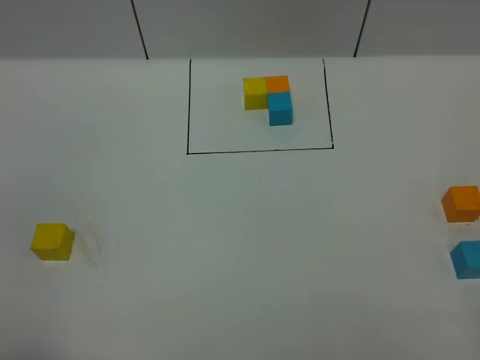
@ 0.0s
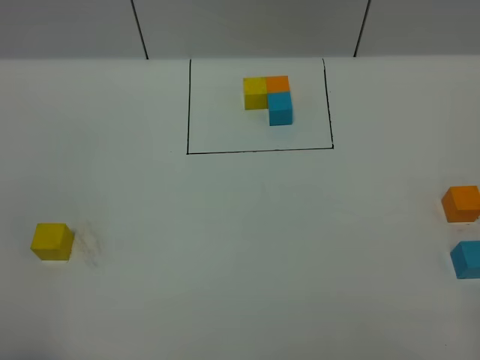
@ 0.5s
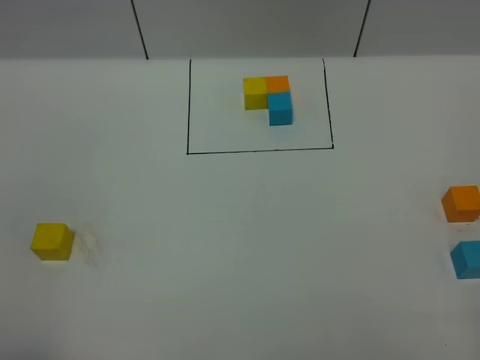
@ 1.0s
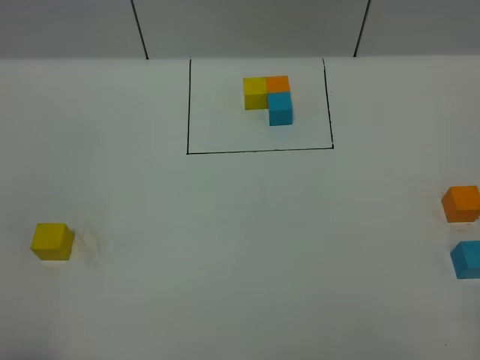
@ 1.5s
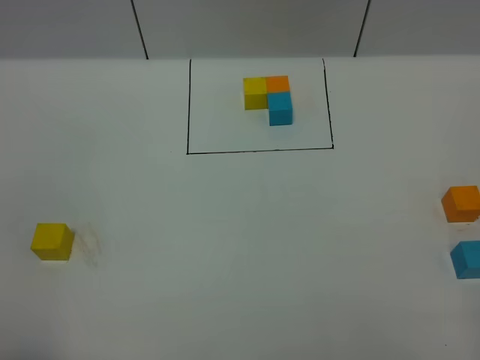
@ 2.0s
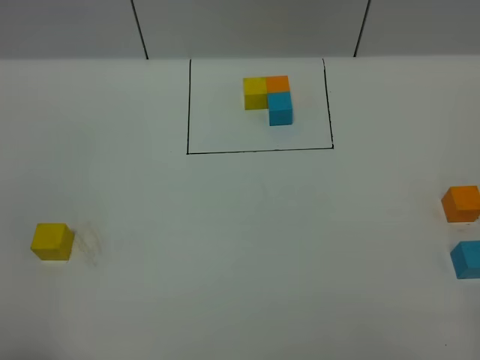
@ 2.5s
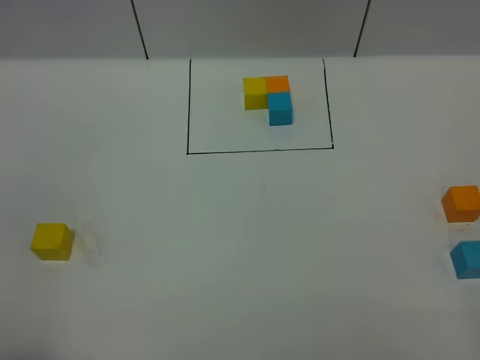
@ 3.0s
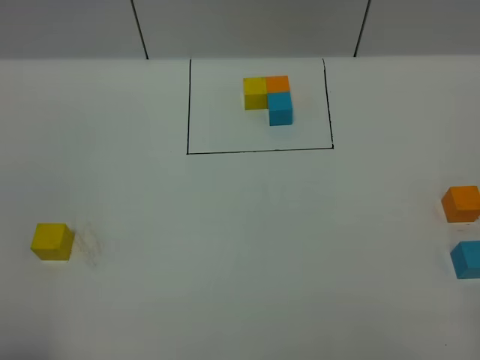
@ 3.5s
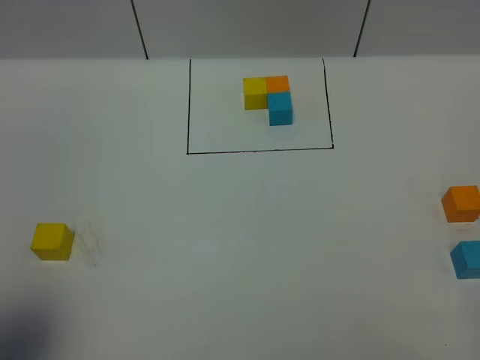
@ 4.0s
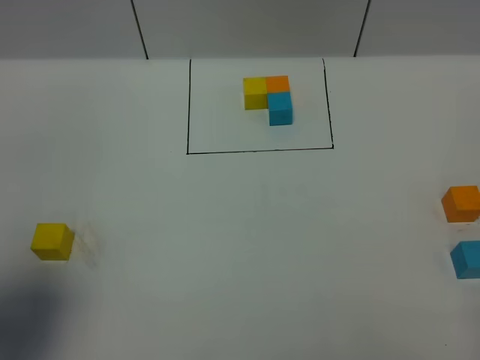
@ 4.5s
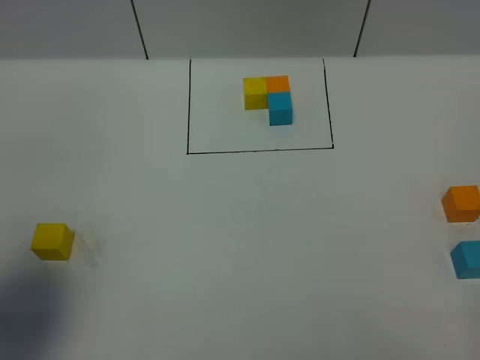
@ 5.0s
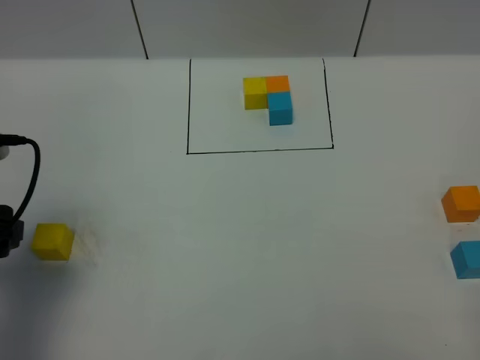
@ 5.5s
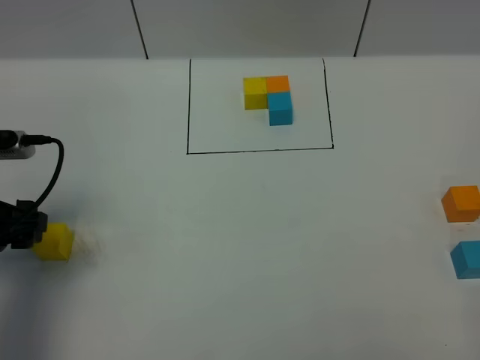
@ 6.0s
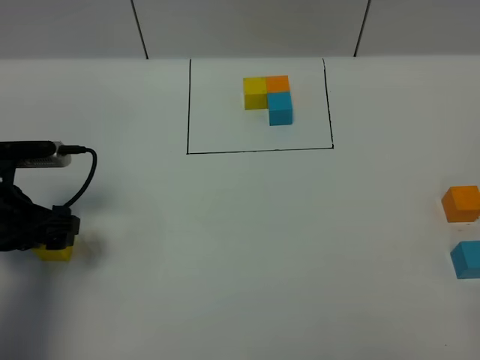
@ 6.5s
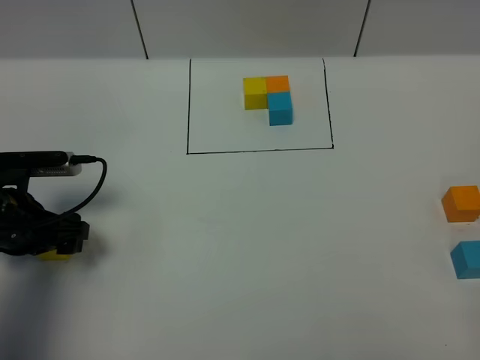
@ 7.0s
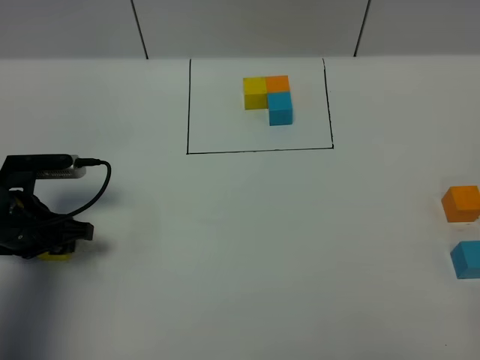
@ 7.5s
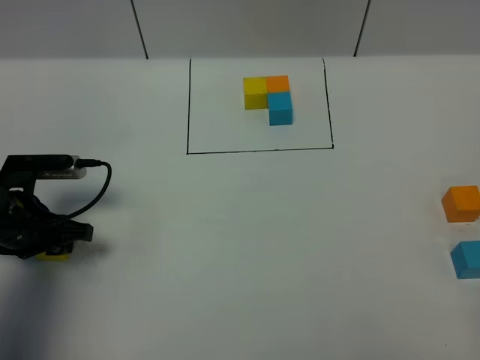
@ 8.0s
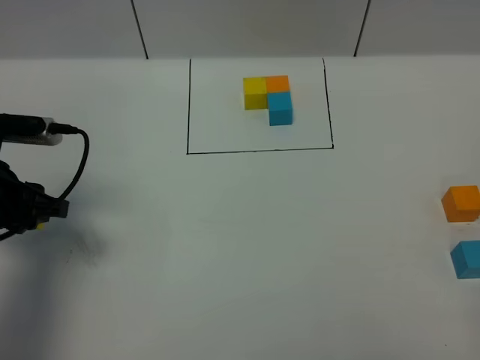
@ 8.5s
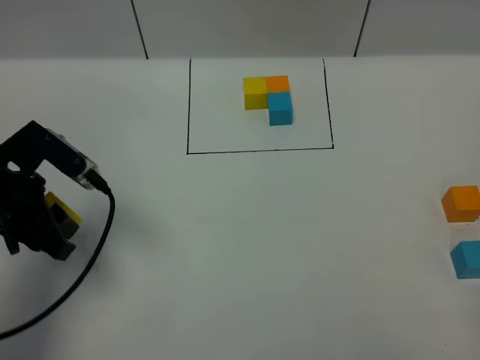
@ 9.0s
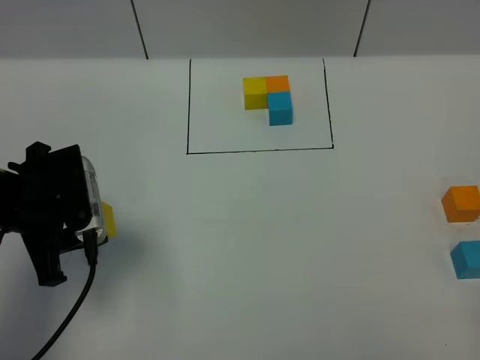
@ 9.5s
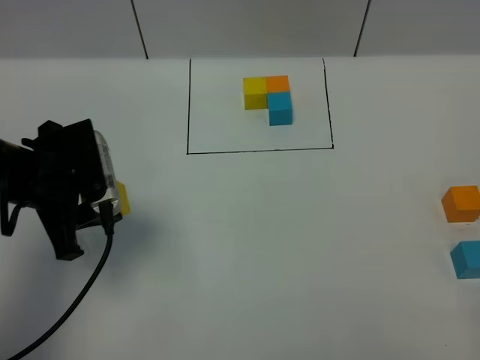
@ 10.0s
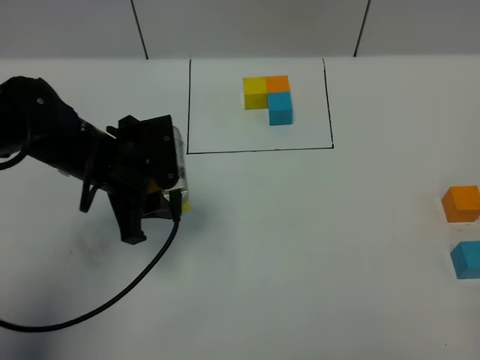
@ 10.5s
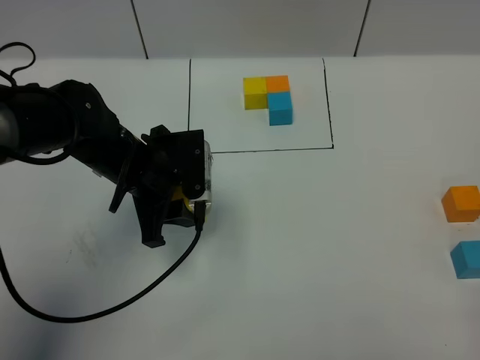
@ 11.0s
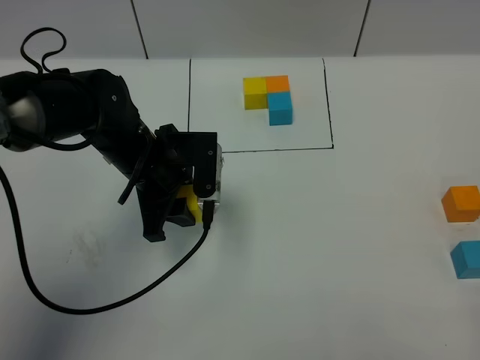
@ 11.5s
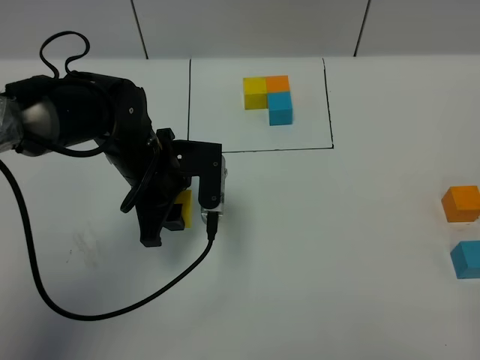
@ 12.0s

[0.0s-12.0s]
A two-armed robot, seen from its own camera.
Task of the whole recording: According to the building block template in front, assemble the scattered blocks together.
0.0s to 2.0s: Both grippers stay put.
2.0s to 4.0s: The left gripper travels forward by about 5 cm.
4.0s to 6.0s: The left gripper shifts approximately 20 cm forward and downward.
6.0s to 8.0s: The left gripper travels downward by approximately 10 cm, and closes up.
8.0s to 10.0s: The left gripper goes approximately 10 cm upward and to the right.
10.0s to 12.0s: The left gripper travels to the right and forward by approximately 10 cm.

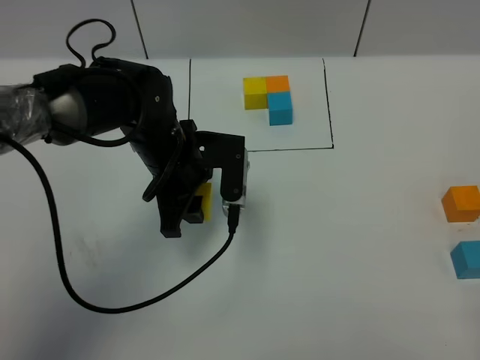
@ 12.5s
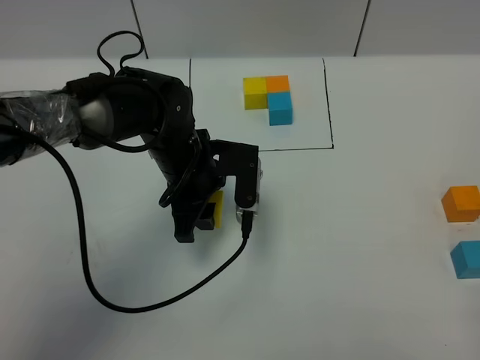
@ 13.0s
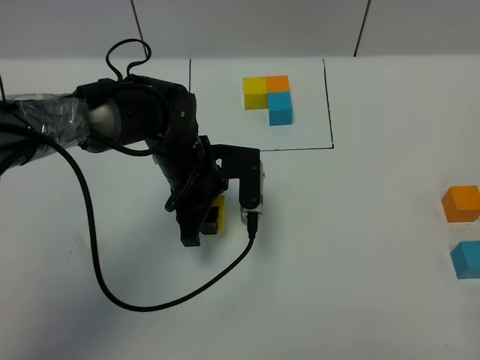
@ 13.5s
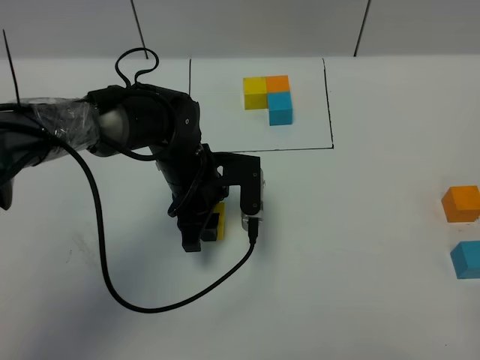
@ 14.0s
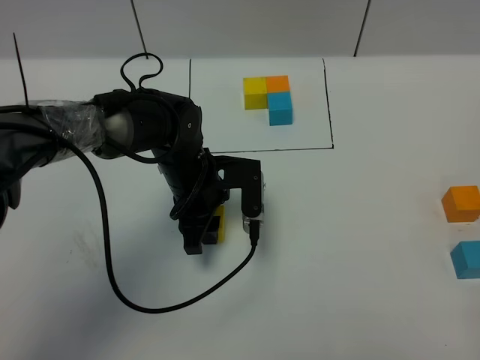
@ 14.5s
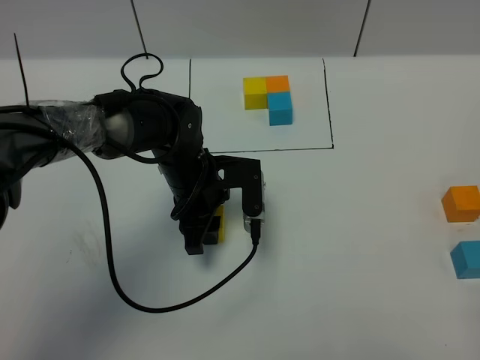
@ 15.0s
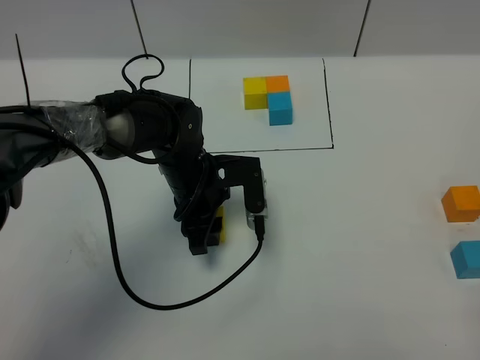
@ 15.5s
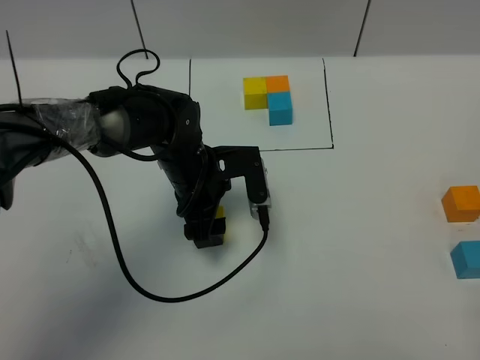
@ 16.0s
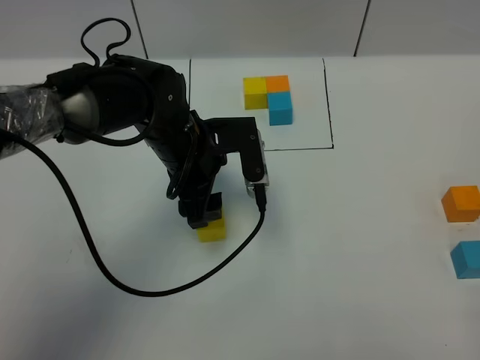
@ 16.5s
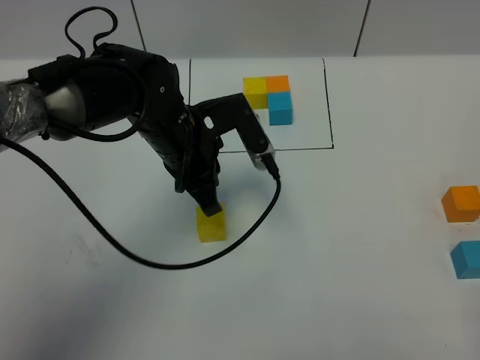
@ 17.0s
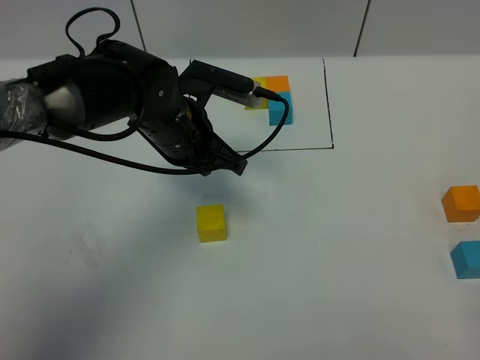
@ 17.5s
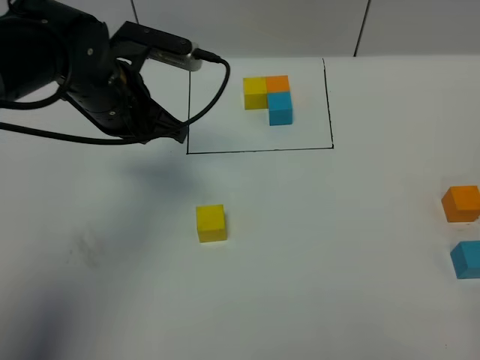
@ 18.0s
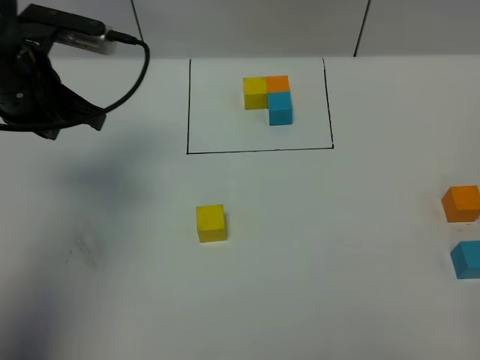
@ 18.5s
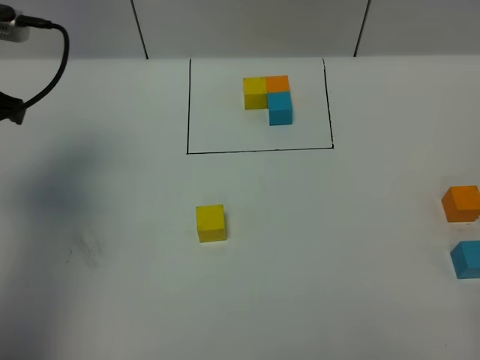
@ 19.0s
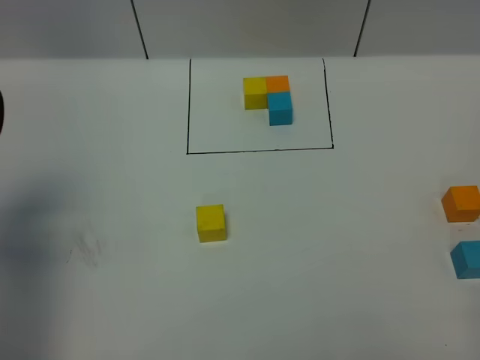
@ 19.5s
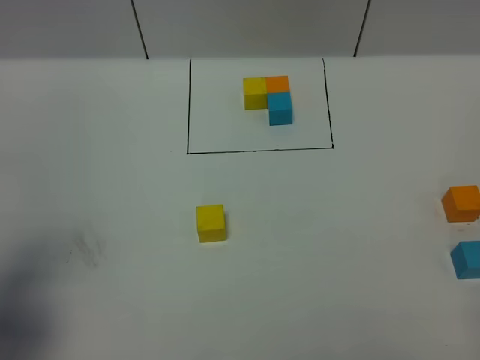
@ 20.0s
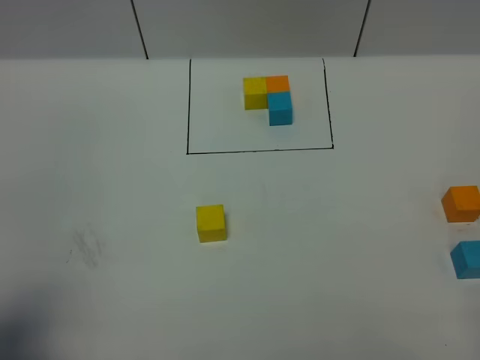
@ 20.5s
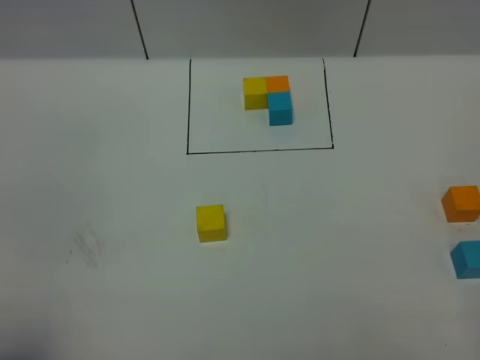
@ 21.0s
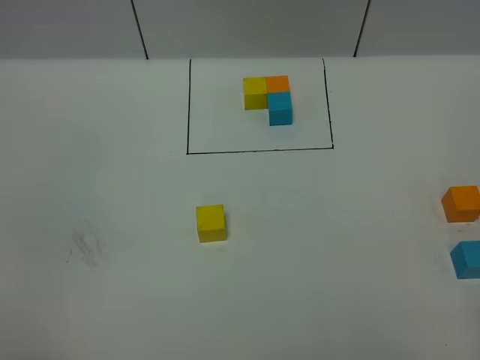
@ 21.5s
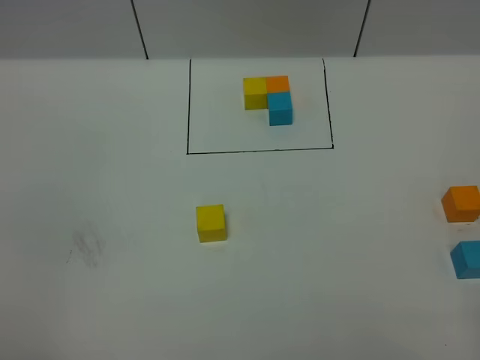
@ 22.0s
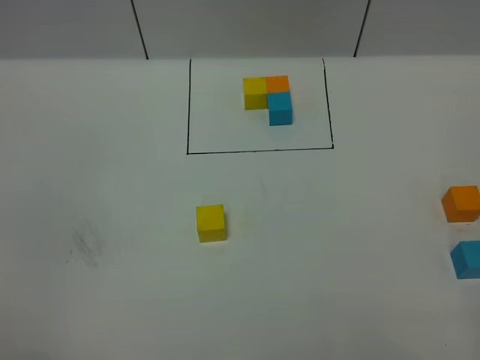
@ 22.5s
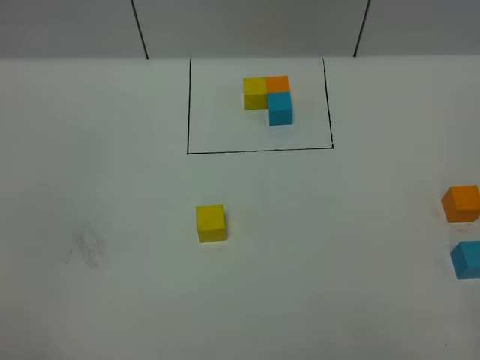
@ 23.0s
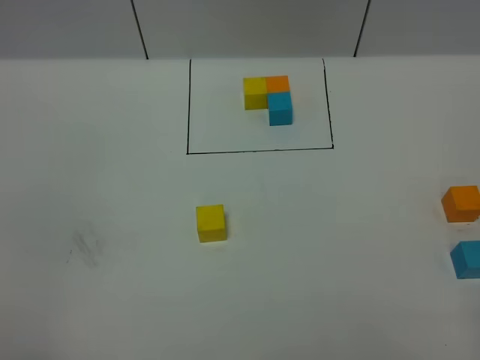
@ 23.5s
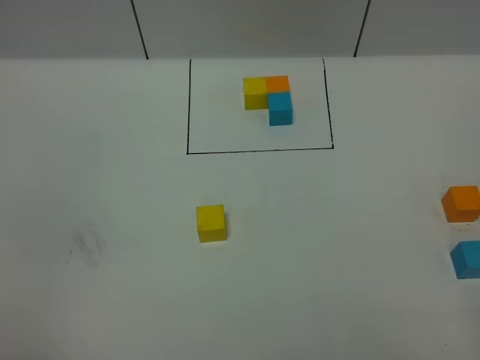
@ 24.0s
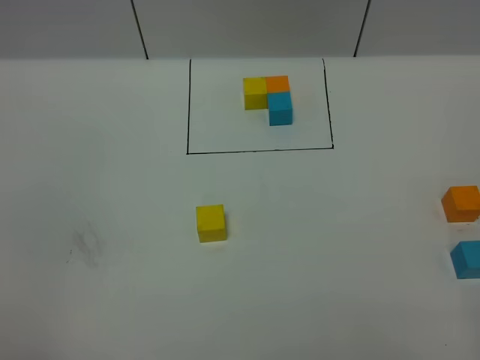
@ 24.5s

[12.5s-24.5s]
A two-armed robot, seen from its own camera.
Task of the whole recording: According to the building block template in front, assemble the scattered blocks together.
Step, 12.5s to 17.0s: Put the yellow cube in the center of the table.
12.5s to 14.5s: The left gripper shifts approximately 5 cm downward.
14.5s to 16.5s: The left gripper goes some 5 cm upward.
16.5s to 18.5s: The left gripper shifts approximately 20 cm to the left and upward, and closes.
18.5s to 20.5s: The left gripper travels backward by some 25 cm.
20.5s to 22.5s: The left gripper goes about 10 cm backward.
22.5s to 24.5s: Both grippers stay about where they are.

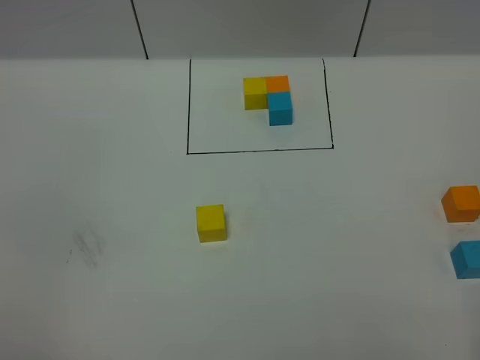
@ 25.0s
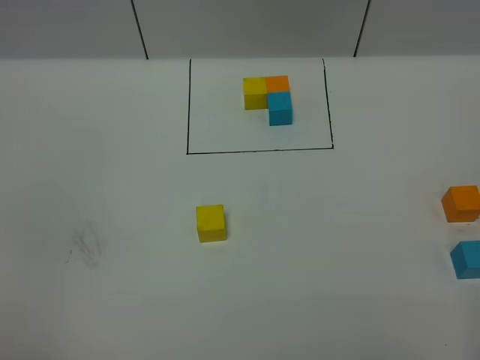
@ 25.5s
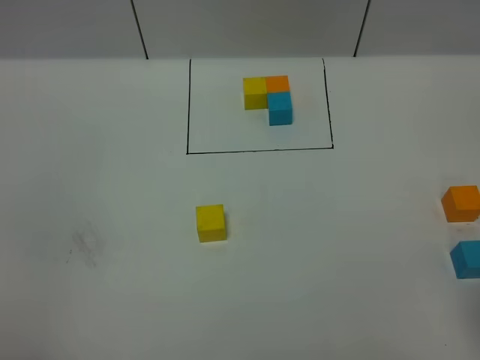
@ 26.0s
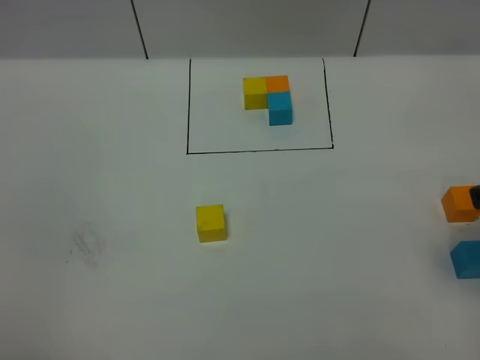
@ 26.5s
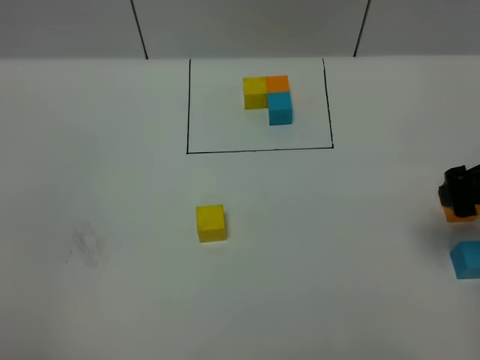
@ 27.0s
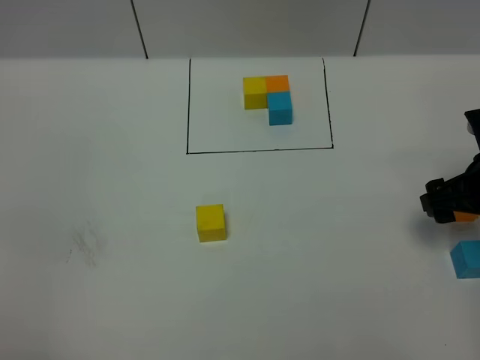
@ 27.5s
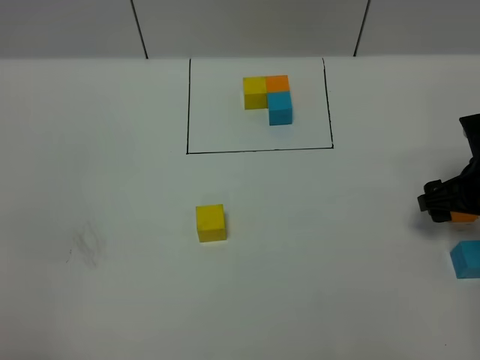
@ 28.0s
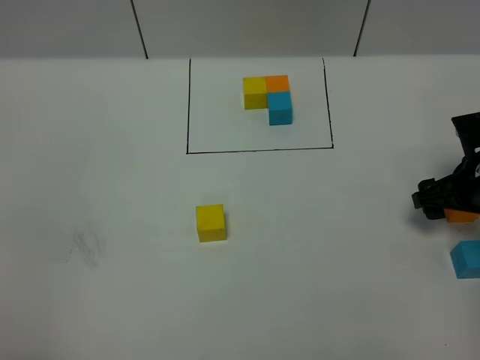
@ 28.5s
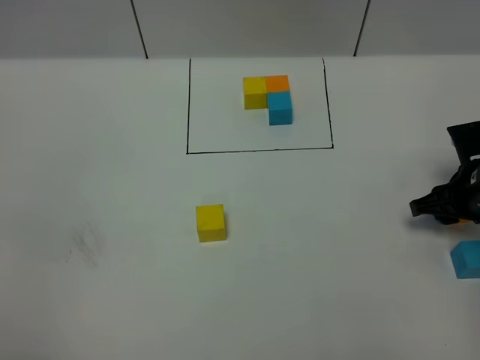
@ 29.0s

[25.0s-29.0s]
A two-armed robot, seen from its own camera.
Task of the whole recording: According to the building block template in front, assemble the scattered blocks together.
25.0s to 27.0s: The right gripper travels forward by roughly 25 cm.
27.0s to 29.0s: The right gripper goes some 15 cm downward and forward, and closes its fingers.
